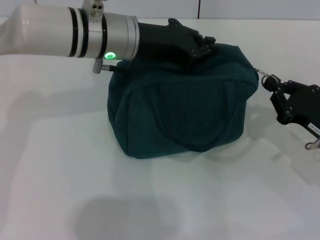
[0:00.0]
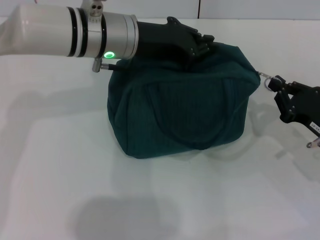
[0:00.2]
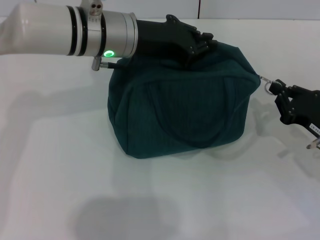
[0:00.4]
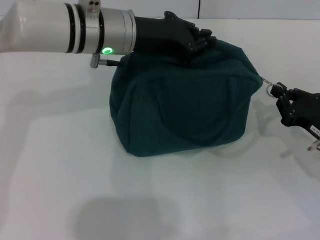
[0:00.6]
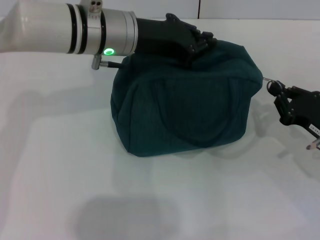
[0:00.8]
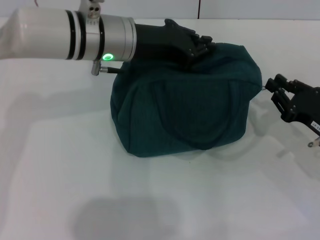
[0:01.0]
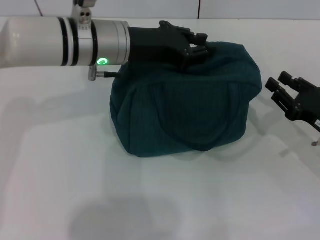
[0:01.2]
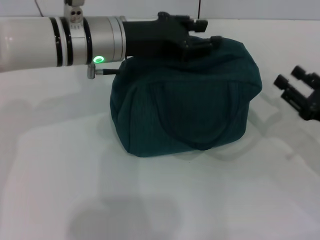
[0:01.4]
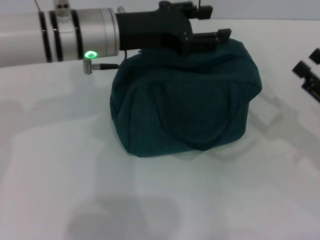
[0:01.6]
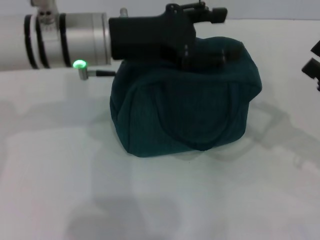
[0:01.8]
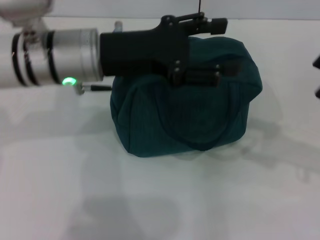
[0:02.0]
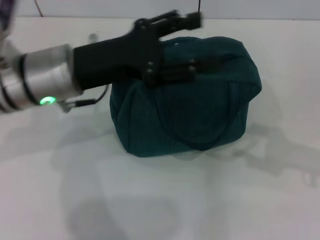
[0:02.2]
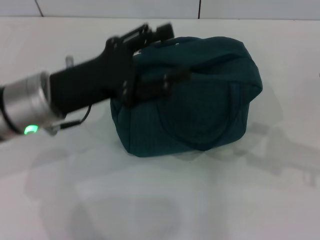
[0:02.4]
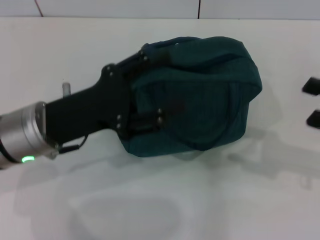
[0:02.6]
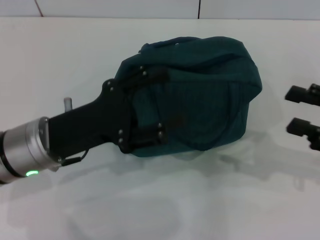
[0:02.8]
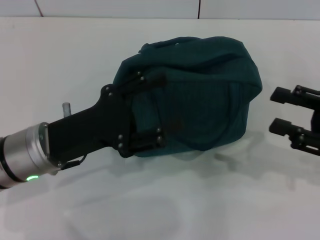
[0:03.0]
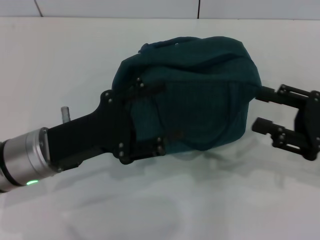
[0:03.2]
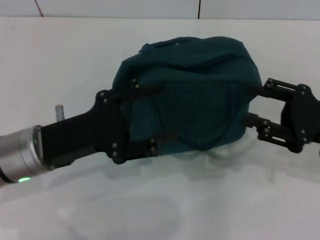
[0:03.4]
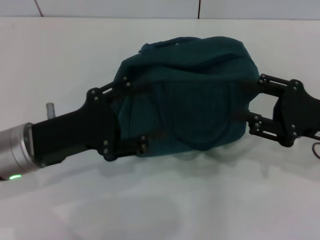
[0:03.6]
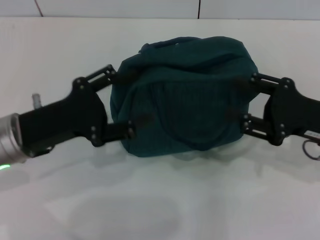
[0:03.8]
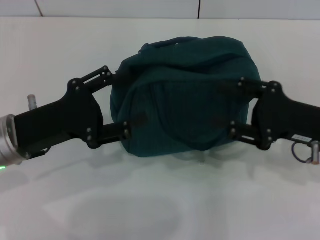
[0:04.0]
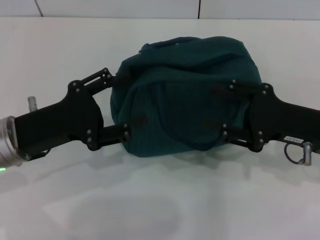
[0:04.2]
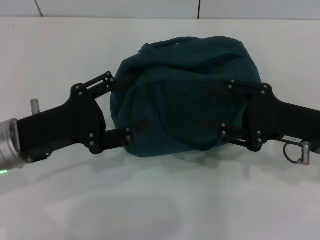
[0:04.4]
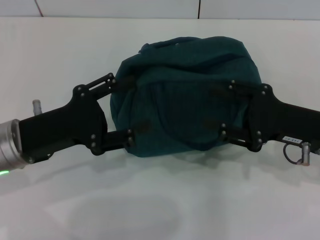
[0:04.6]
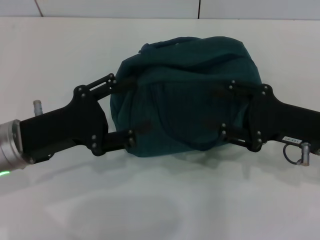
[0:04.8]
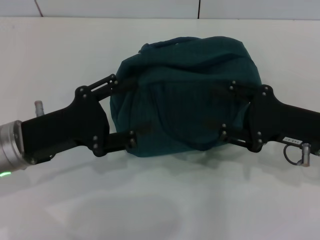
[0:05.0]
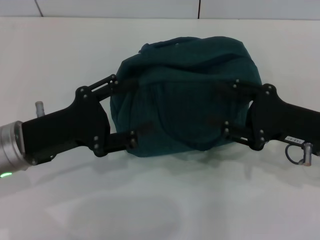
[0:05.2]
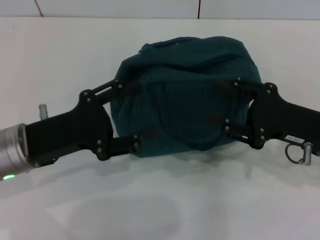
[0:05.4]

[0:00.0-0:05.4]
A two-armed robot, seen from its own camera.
Step, 0:01.2 to 0:01.6: Hold the lunch bag with your left hand.
0:00.0 to 0:01.4: There are only small adjustments of the grippers.
0:01.4 to 0:02.8: The right gripper moves upward, some 5 cm. Meanwhile the left gripper goes roughly 15 cm backward, to the left and downward, and opens.
0:02.8 to 0:04.0: The right gripper is displaced to the left by some 10 cm.
0:04.0 to 0:05.4: The two grippers keep their place.

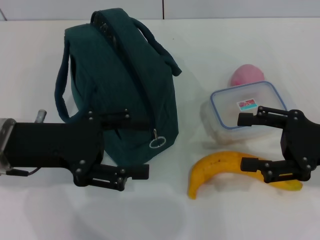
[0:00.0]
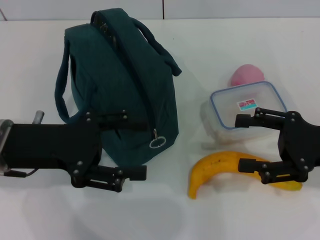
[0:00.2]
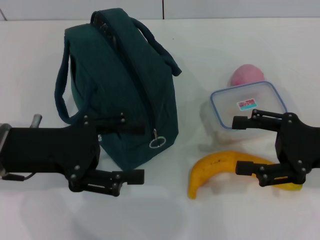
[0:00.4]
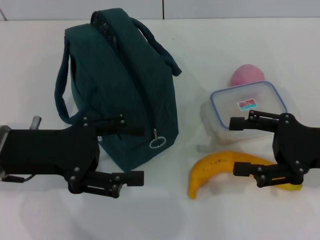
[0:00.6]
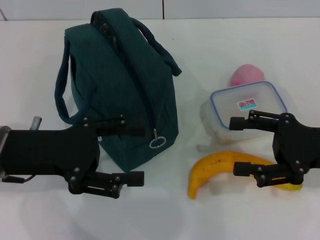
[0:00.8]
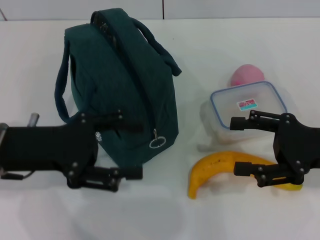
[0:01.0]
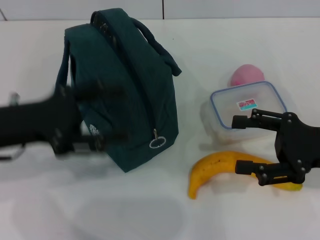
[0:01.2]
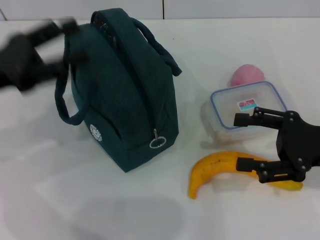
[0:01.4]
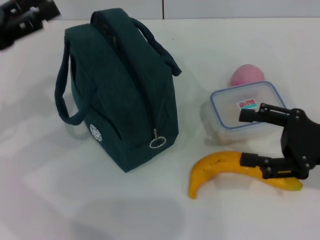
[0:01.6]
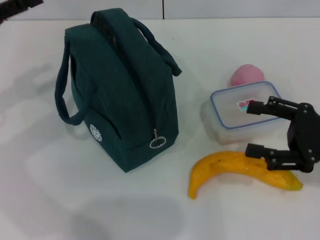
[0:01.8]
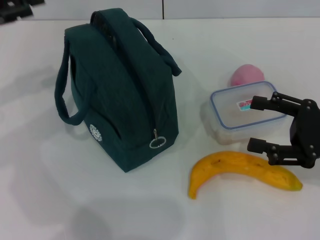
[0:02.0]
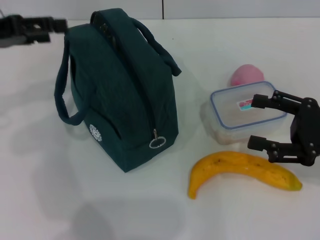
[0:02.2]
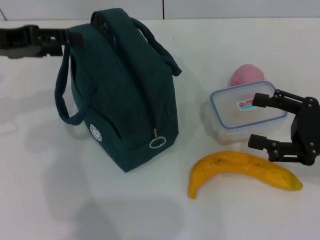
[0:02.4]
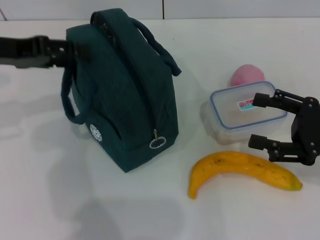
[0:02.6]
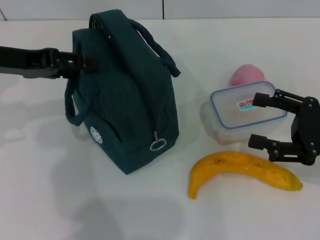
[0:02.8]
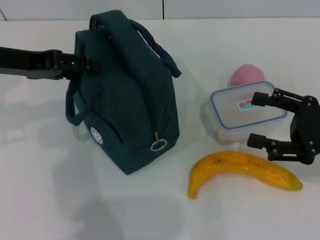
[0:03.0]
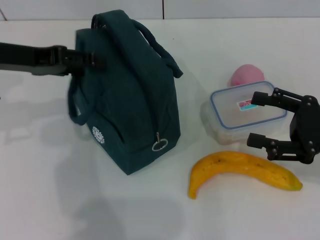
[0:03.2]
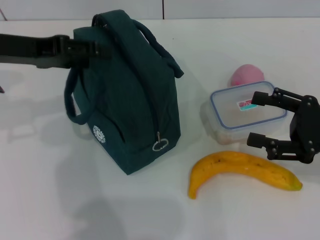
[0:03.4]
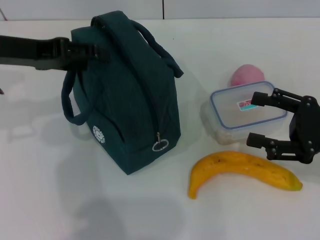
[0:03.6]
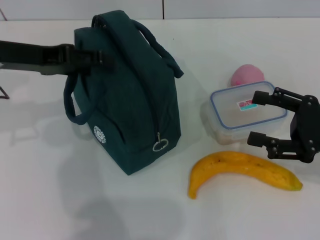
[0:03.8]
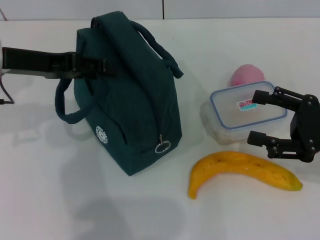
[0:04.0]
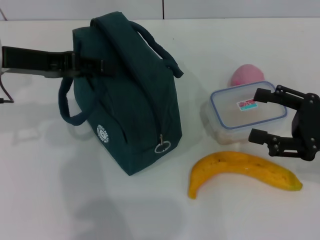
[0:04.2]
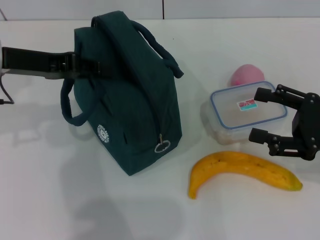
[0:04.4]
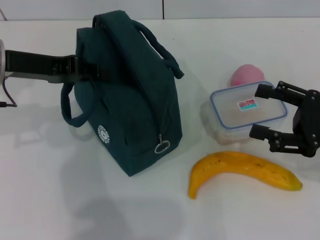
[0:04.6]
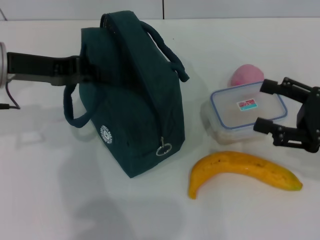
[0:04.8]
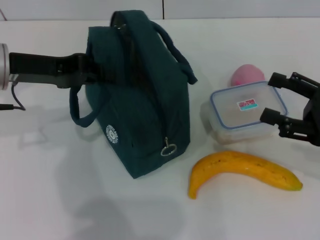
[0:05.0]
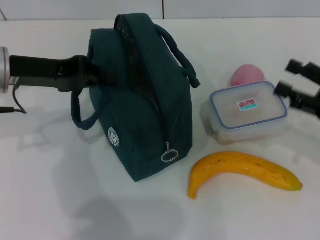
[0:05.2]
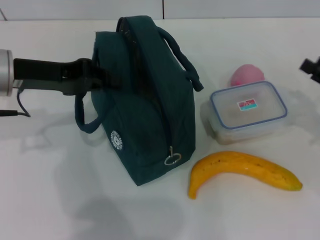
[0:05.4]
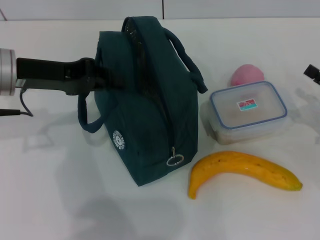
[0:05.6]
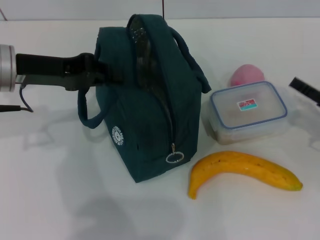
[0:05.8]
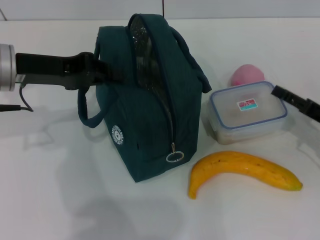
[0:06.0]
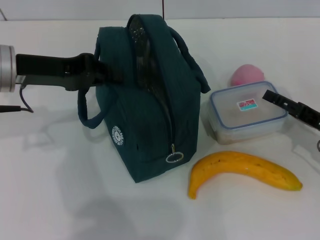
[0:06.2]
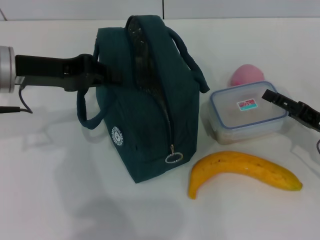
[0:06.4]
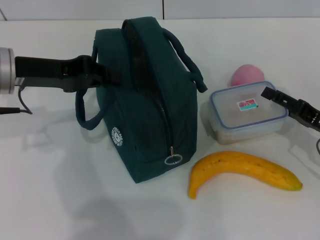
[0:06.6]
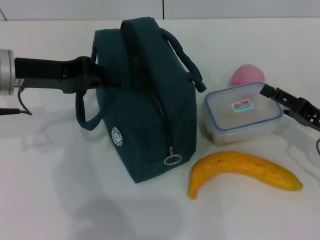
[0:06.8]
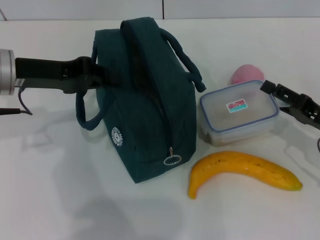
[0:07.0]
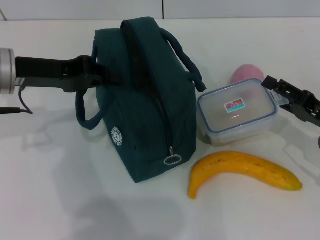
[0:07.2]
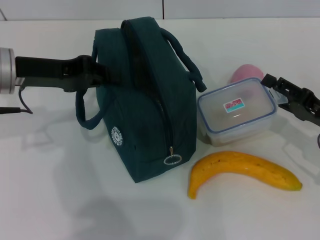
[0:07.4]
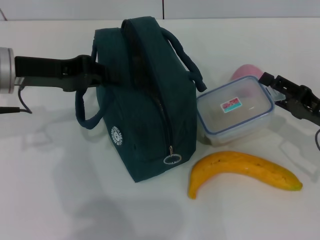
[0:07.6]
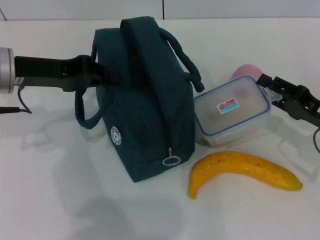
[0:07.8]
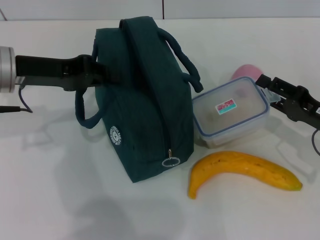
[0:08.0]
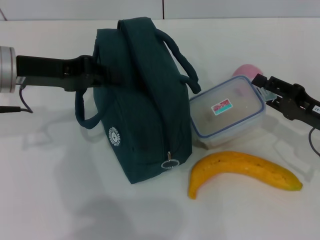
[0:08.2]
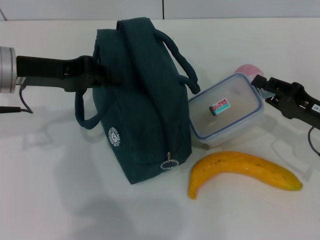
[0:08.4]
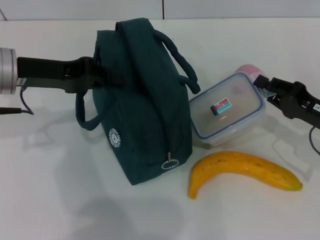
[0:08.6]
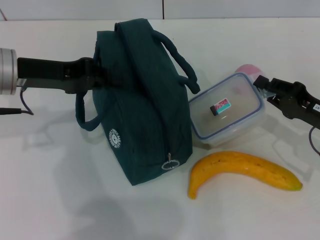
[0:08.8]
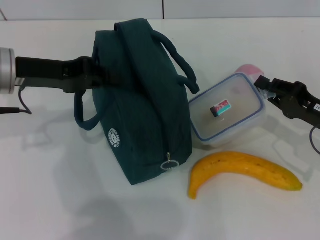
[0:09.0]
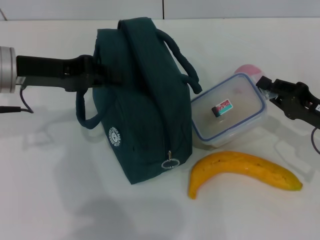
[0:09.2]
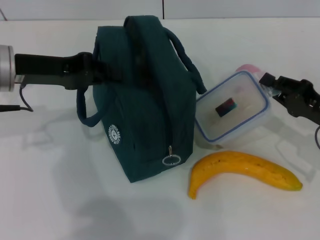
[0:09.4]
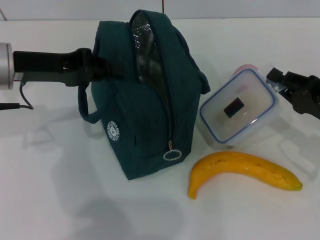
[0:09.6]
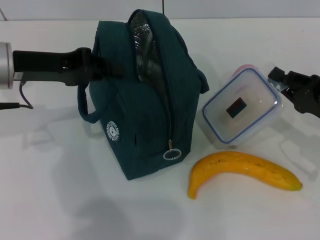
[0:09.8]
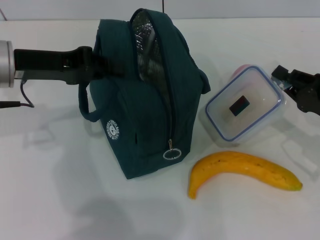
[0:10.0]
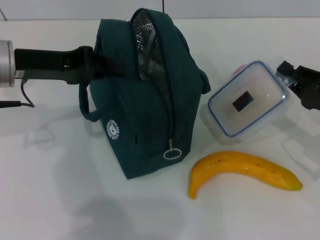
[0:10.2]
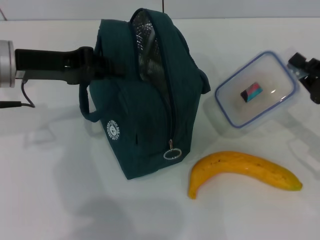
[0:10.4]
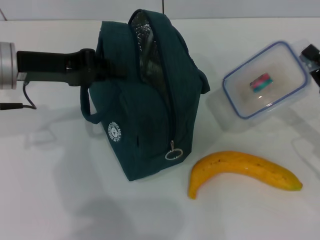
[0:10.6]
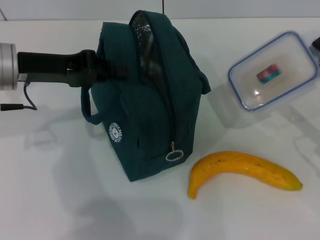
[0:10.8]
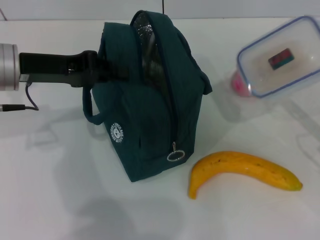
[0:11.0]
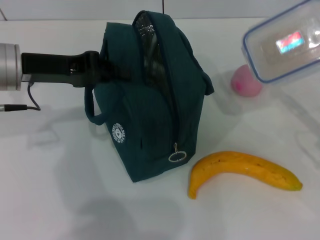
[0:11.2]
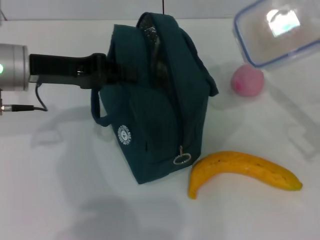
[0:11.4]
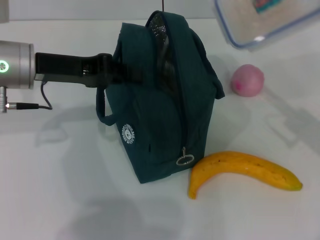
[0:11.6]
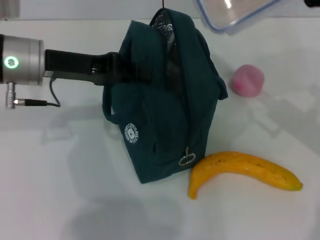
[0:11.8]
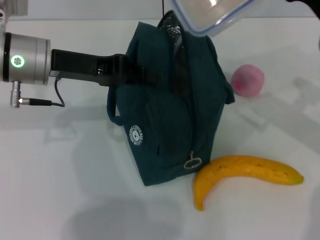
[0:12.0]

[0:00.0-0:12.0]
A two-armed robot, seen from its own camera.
Step, 0:00.0 to 0:05.6: Hold the lunch bag with your left hand.
Step, 0:05.8 to 0:08.8: Pick up the lunch box with your right hand.
0:00.0 to 0:01.6: The left gripper shifts approximately 10 cm to the left.
0:01.6 to 0:03.0: The left gripper moves approximately 5 cm.
0:03.0 to 0:04.4: The left gripper closes.
0:04.4 to 0:06.0: The left gripper closes, while the right gripper shifts some 10 cm downward.
0:06.0 to 0:07.6: The grippers stay close to where they were, moving slightly.
0:07.6 to 0:09.0: The right gripper closes.
0:09.0 to 0:10.4: There are only small adjustments of the grippers.
0:10.4 to 0:12.0: The right gripper is displaced upward, to the left and forward by roughly 15 cm.

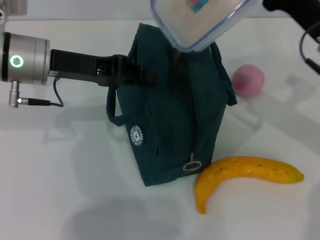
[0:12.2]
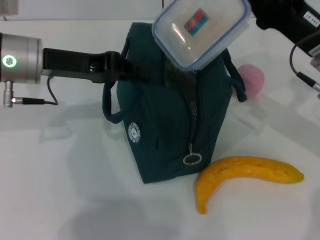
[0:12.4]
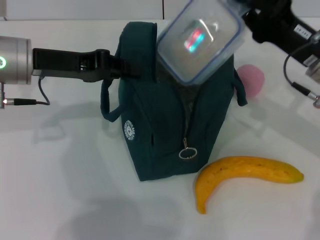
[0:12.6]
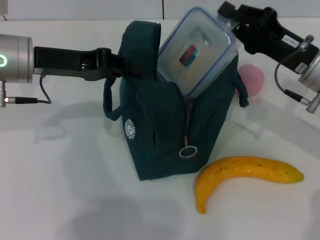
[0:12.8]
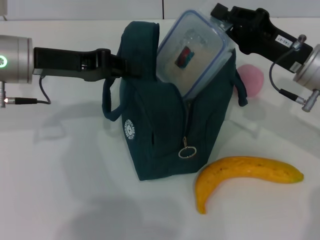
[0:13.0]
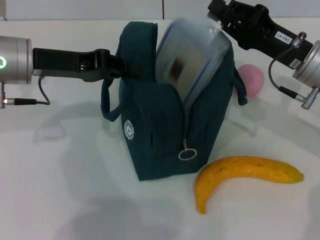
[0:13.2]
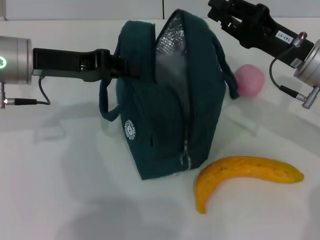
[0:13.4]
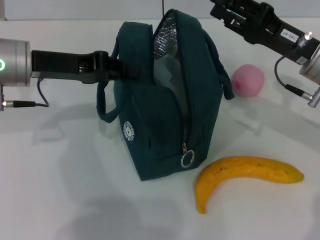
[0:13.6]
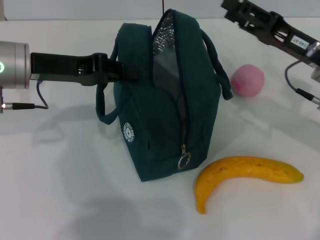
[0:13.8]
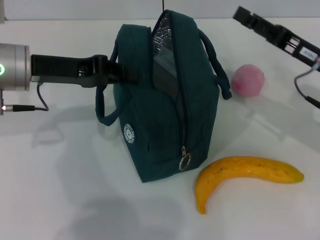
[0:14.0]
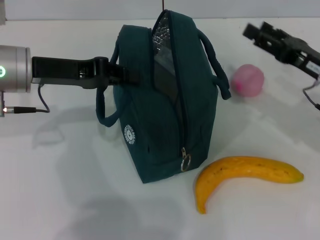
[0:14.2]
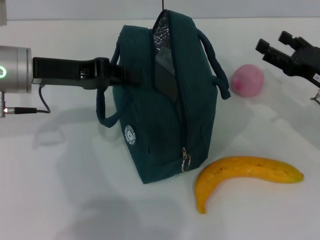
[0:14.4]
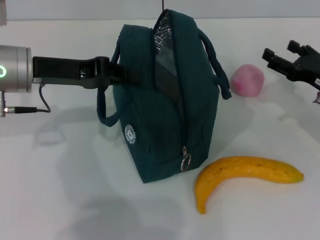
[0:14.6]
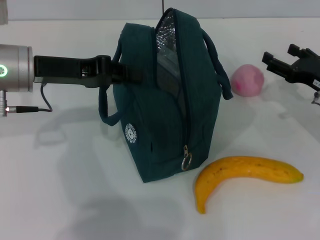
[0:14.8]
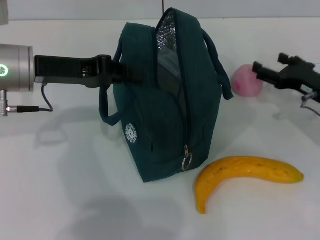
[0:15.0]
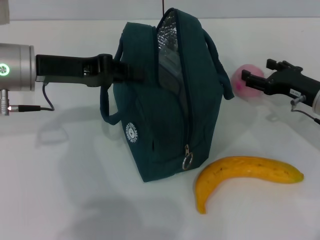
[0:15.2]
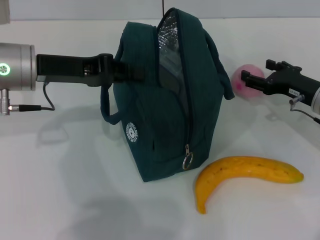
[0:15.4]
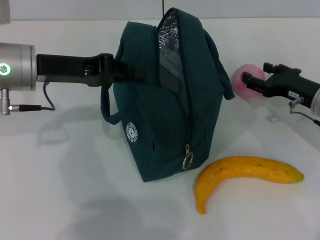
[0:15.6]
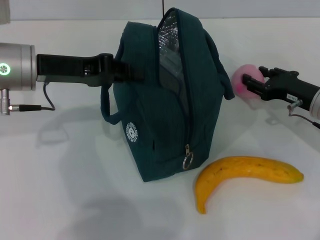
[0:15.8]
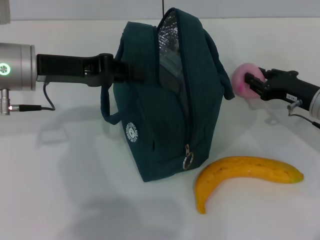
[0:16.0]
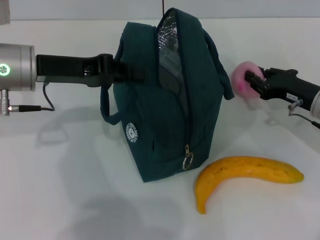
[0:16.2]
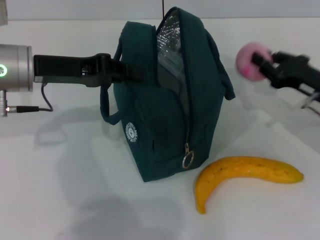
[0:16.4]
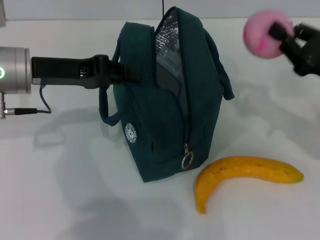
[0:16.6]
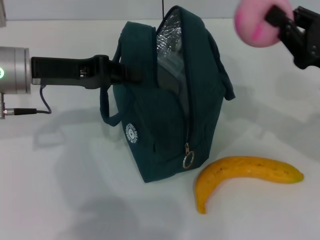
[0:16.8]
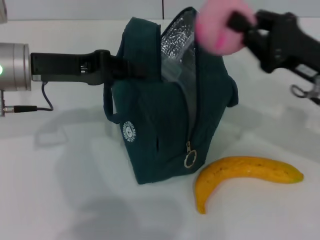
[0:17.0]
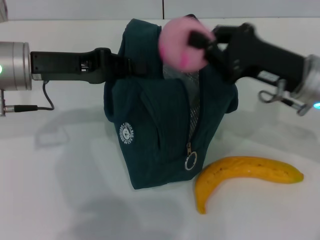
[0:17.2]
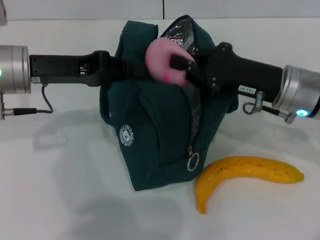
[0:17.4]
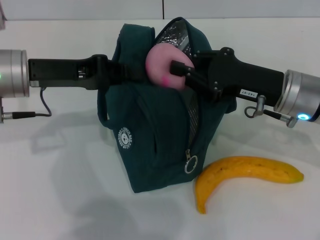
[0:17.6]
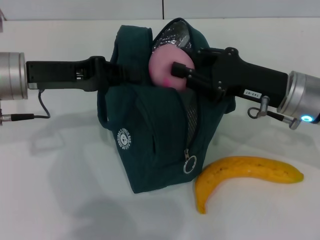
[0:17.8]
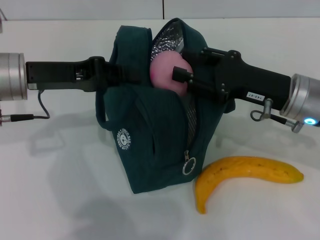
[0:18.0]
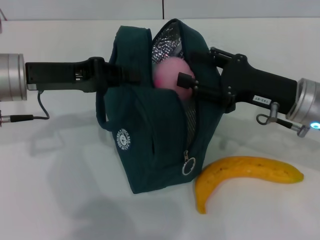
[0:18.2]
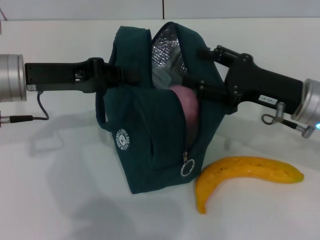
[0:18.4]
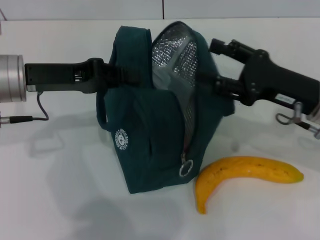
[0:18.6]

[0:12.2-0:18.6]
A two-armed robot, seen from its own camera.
Step, 0:13.6 to 0:16.0: Grab the peach with your right hand.
Step, 0:16.2 to 0:18.4: Place the peach into the lunch bag with your right hand.
0:12.2 to 0:13.8: The right gripper opens its fingers.
0:13.8 to 0:15.4: The right gripper goes approximately 10 cm downward.
0:15.4 to 0:17.0: The right gripper is displaced upward by some 10 cm, and closes its fingers.
0:17.0 to 0:18.6: The right gripper opens.
